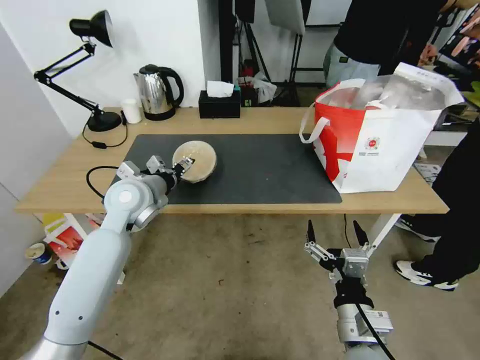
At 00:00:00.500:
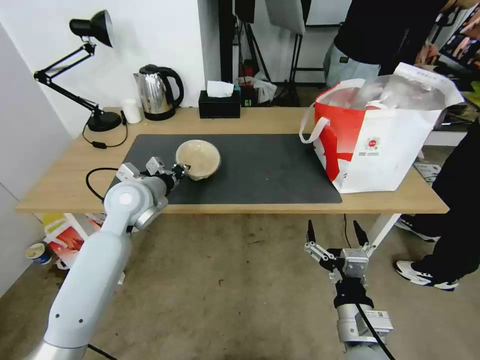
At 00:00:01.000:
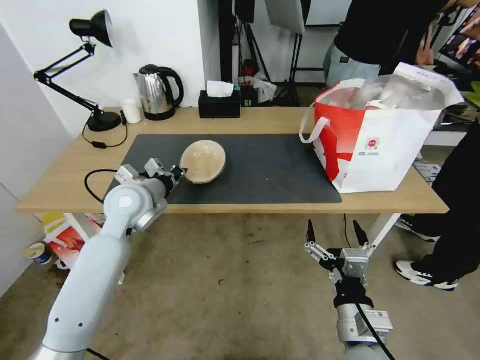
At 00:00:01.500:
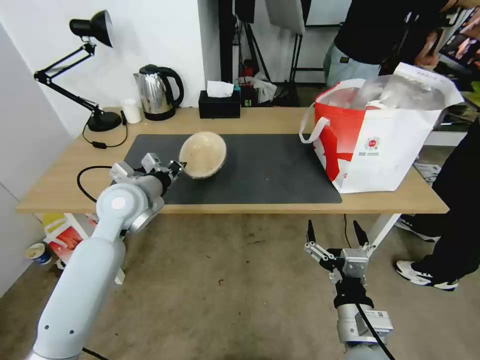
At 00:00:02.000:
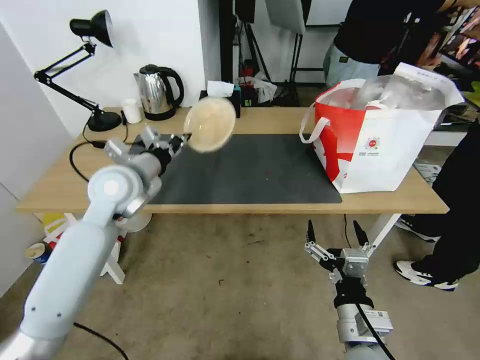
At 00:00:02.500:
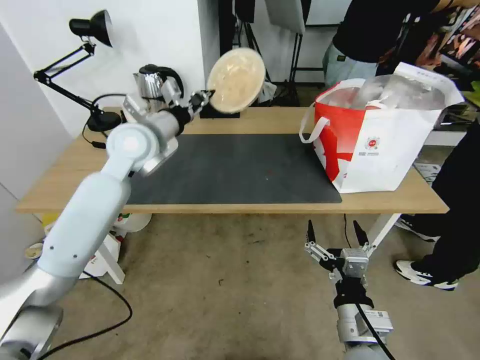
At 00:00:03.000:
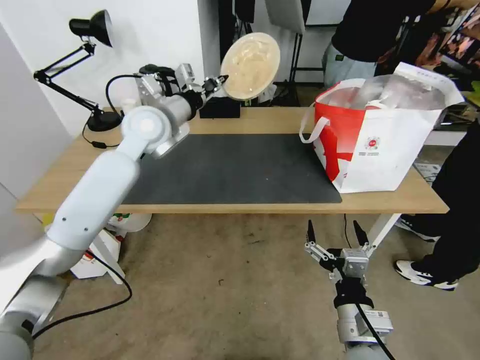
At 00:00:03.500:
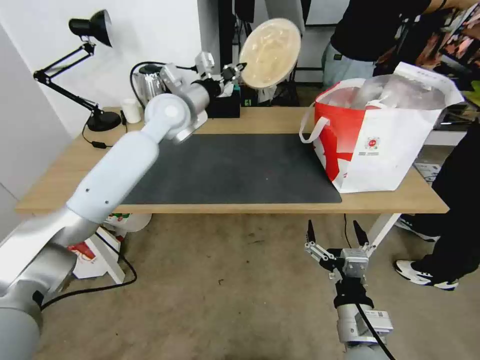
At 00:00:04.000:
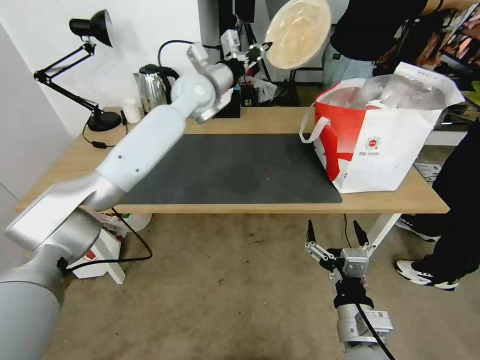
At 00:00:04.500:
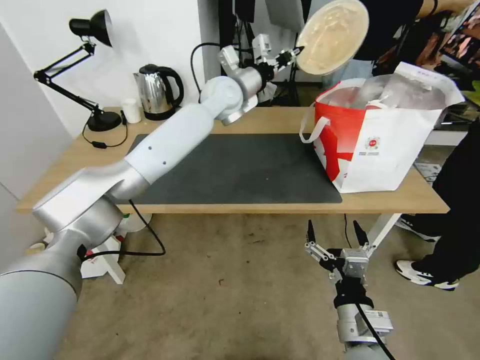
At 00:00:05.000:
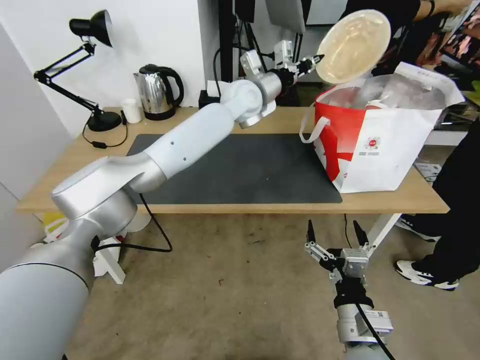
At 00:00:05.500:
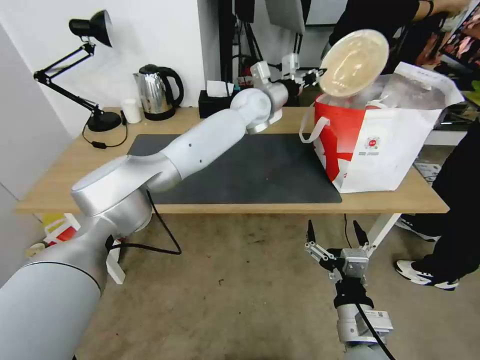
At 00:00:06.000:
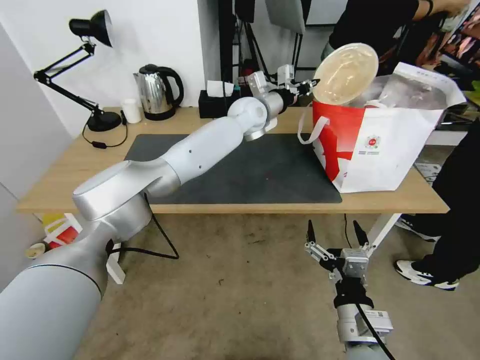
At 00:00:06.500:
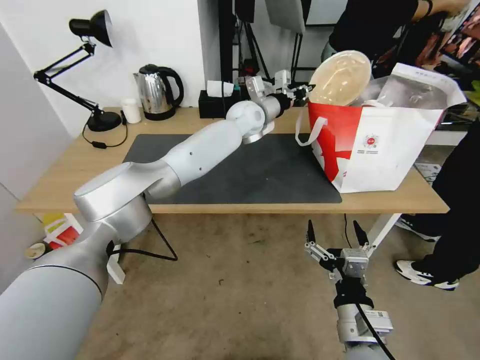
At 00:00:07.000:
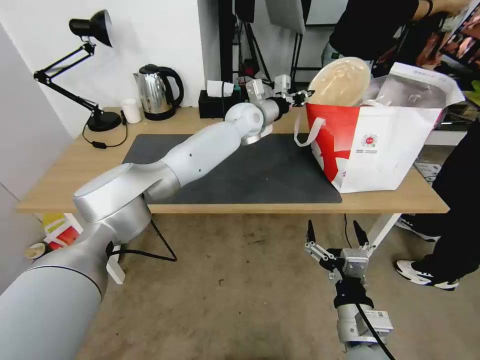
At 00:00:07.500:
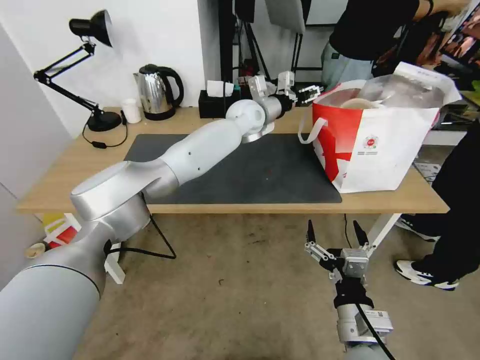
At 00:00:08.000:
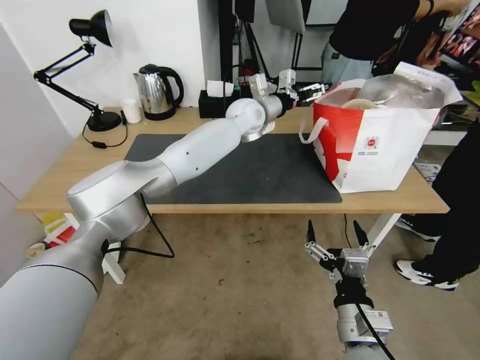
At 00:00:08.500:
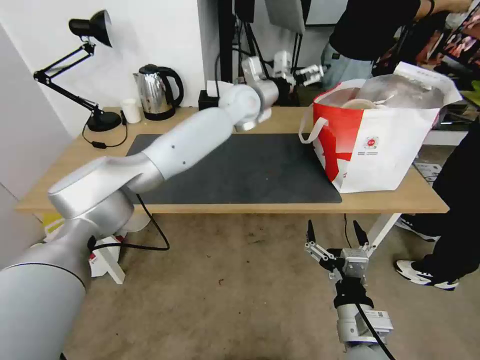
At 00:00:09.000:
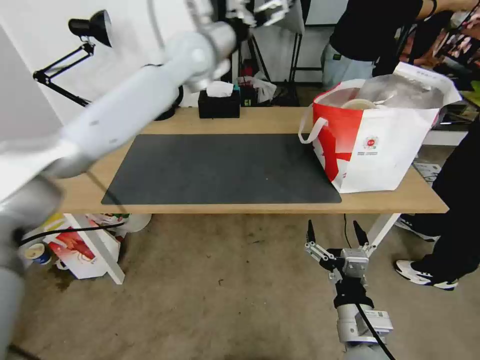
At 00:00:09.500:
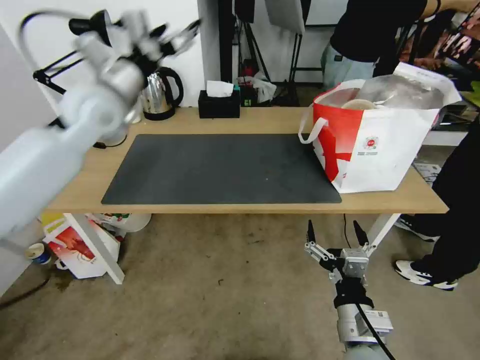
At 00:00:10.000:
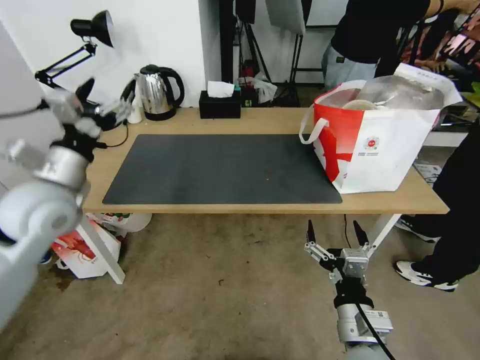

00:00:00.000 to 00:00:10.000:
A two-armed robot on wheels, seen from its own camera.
Task of the whole recording: Pick up the trash from the table and place it into the takeout bag.
00:00:00.000 to 00:00:02.000: The left gripper is displaced upward by approximately 5 cm, and closes.
00:00:02.000 to 00:00:04.000: The left gripper heads forward, to the right and upward, covering about 25 cm.
00:00:04.000 to 00:00:06.000: The left gripper is displaced to the right and downward by about 15 cm.
00:00:06.000 to 00:00:08.000: The left gripper opens its fingers.
00:00:08.000 to 00:00:10.000: The left gripper goes about 40 cm to the left and backward.

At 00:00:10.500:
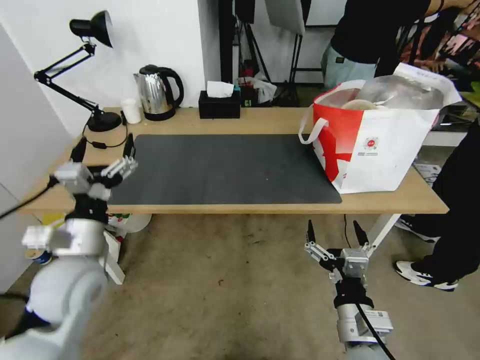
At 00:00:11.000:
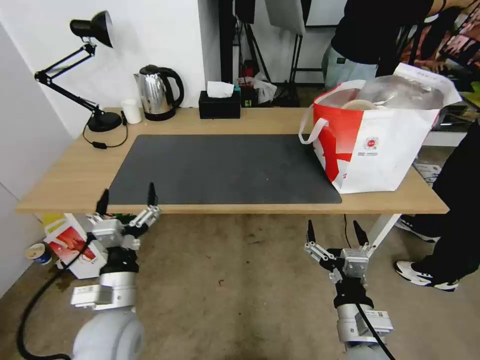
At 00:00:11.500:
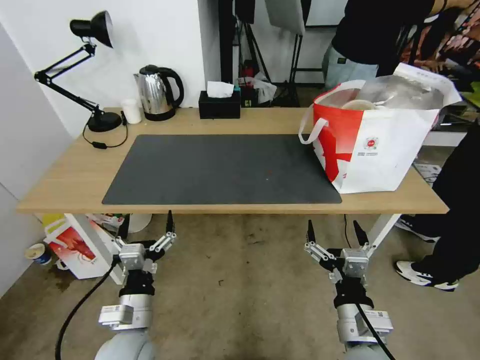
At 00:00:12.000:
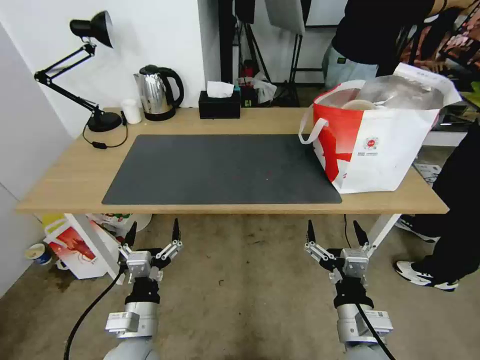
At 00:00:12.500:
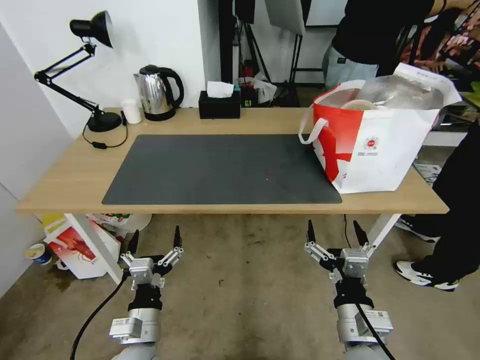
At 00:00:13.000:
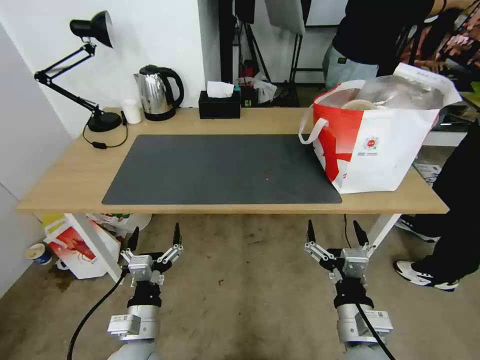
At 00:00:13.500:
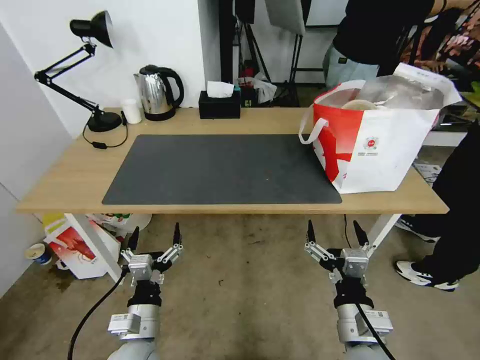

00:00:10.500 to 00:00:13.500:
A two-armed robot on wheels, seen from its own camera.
Task of the whole recording: Pick up the trash from the table and place it into the takeout bag.
00:00:10.500 to 00:00:12.000: The left gripper goes about 20 cm downward, backward and to the right.
00:00:12.000 to 00:00:13.500: There are only small adjustments of the grippers.
